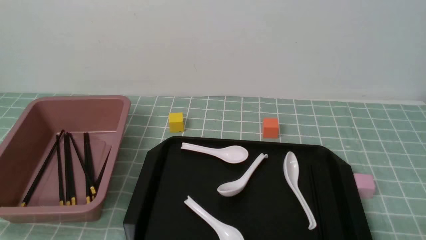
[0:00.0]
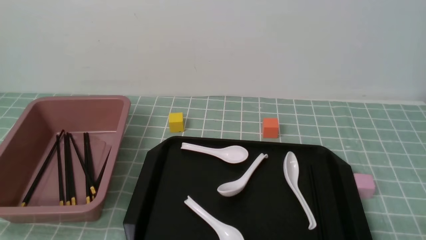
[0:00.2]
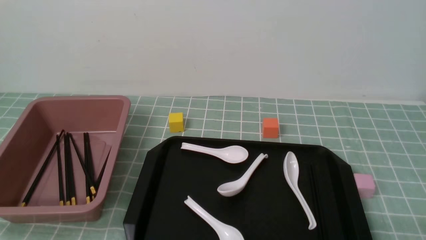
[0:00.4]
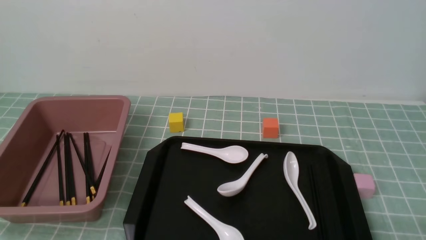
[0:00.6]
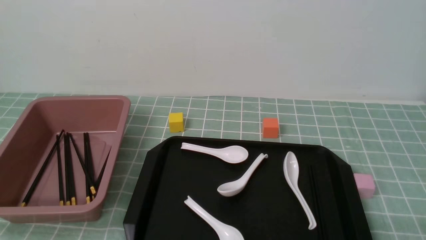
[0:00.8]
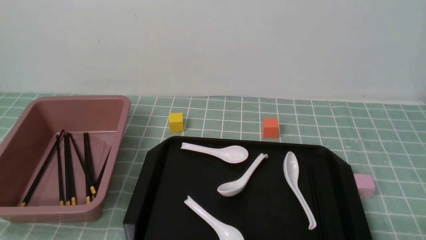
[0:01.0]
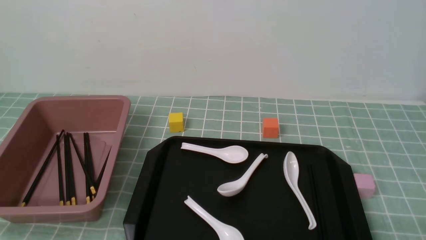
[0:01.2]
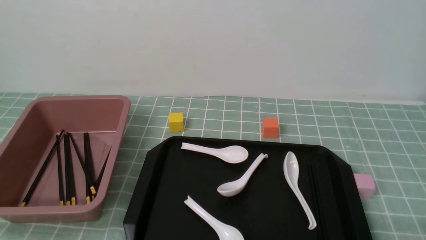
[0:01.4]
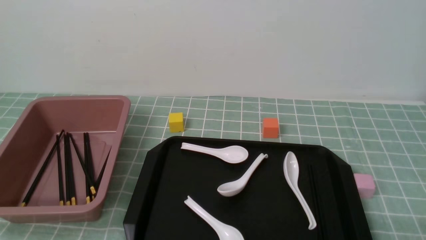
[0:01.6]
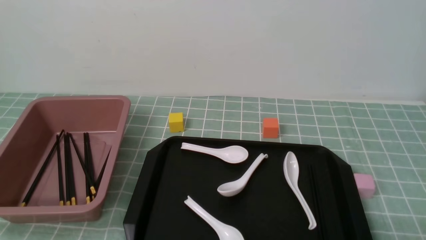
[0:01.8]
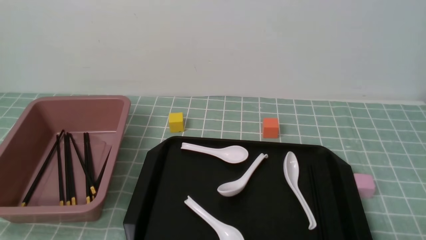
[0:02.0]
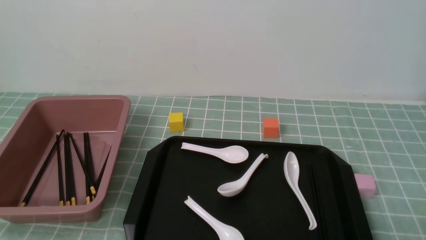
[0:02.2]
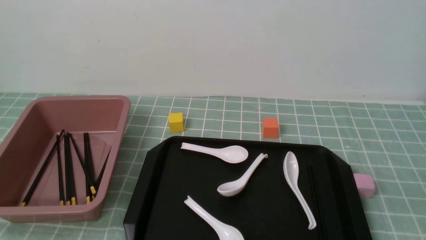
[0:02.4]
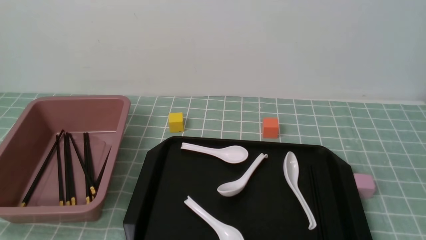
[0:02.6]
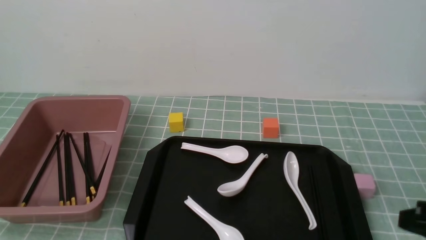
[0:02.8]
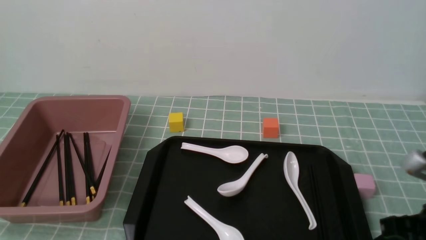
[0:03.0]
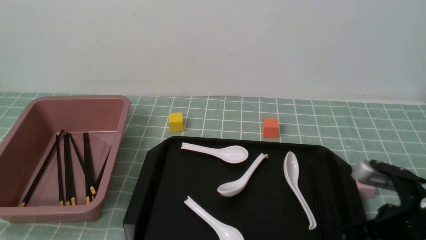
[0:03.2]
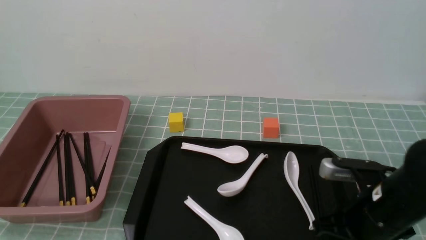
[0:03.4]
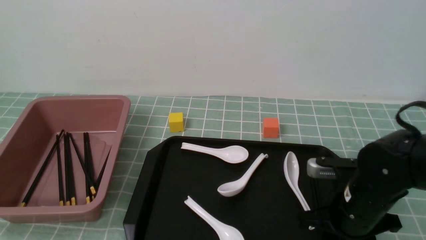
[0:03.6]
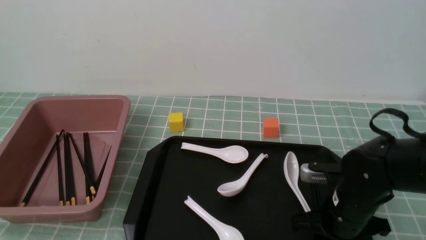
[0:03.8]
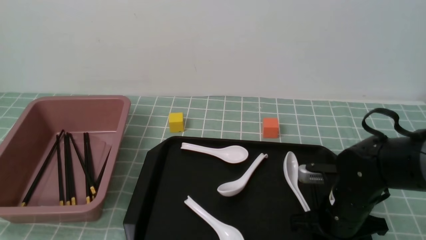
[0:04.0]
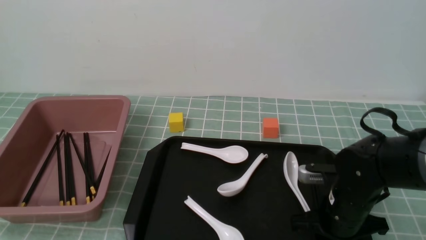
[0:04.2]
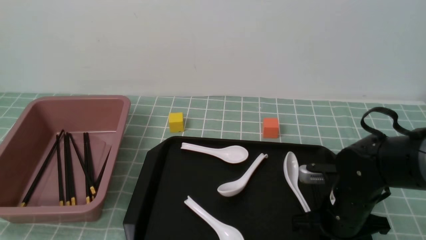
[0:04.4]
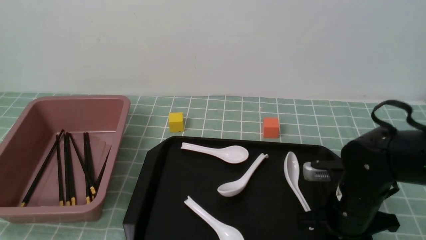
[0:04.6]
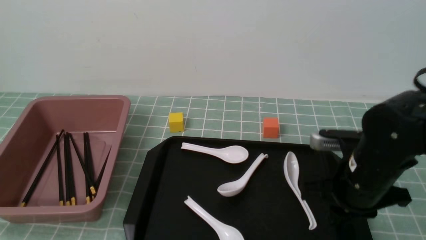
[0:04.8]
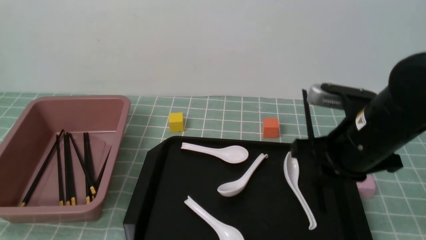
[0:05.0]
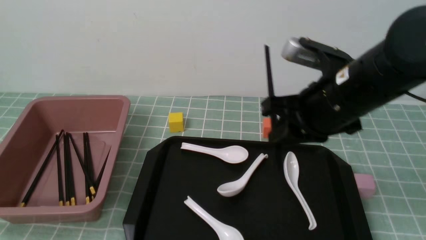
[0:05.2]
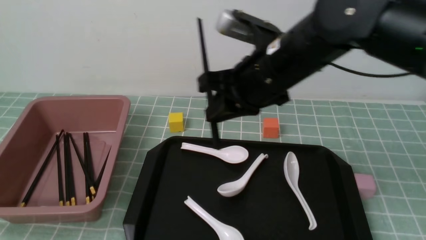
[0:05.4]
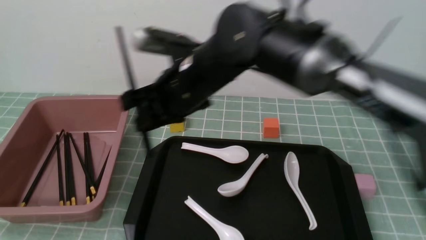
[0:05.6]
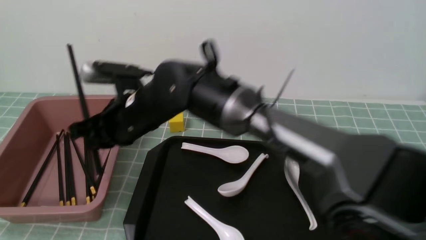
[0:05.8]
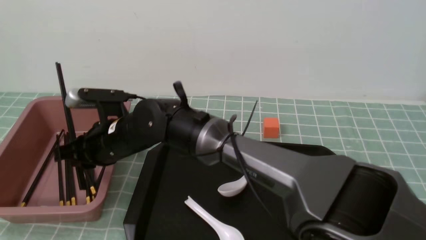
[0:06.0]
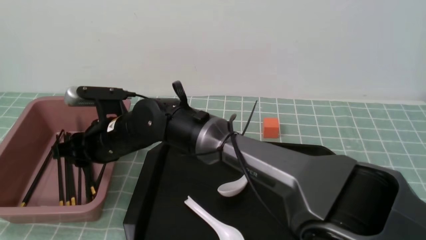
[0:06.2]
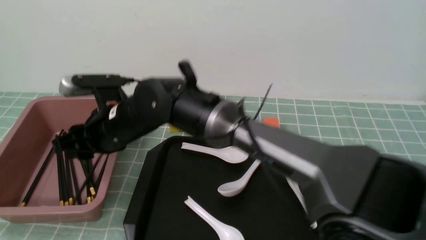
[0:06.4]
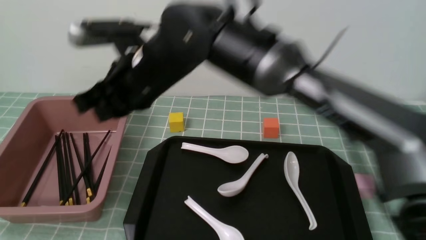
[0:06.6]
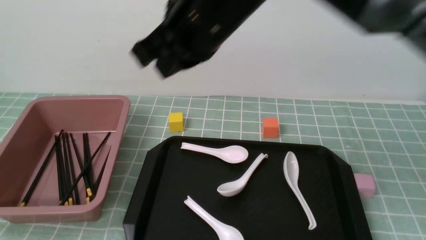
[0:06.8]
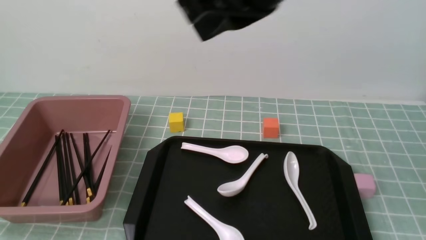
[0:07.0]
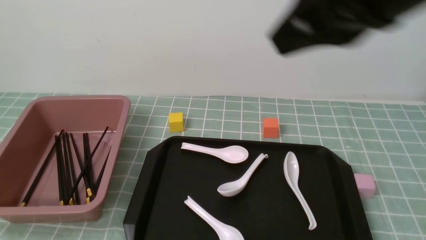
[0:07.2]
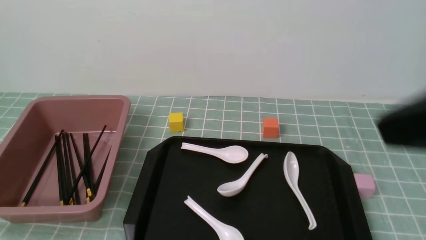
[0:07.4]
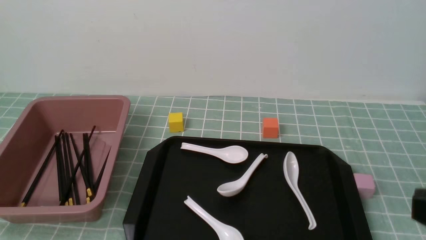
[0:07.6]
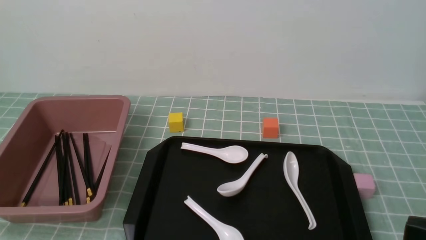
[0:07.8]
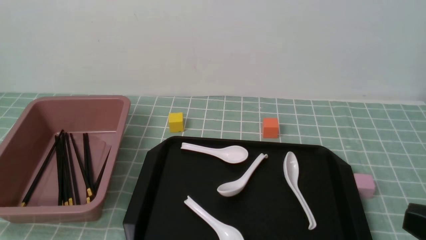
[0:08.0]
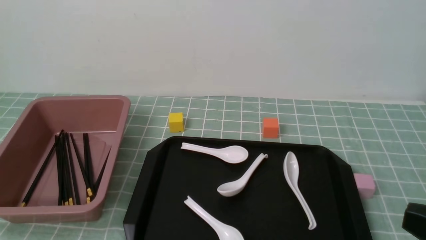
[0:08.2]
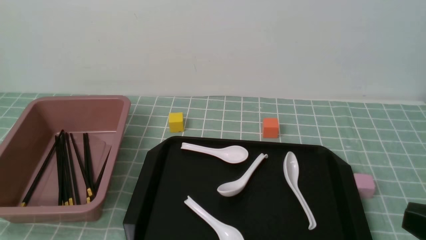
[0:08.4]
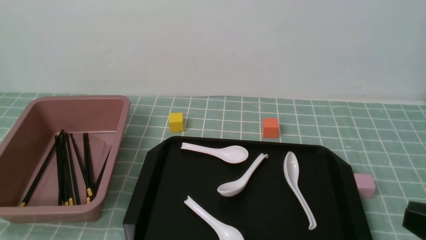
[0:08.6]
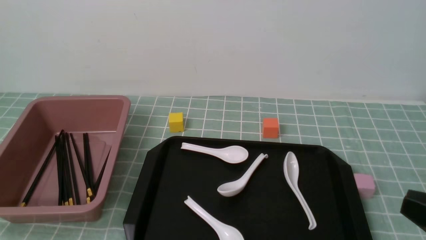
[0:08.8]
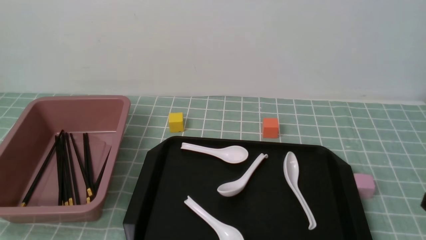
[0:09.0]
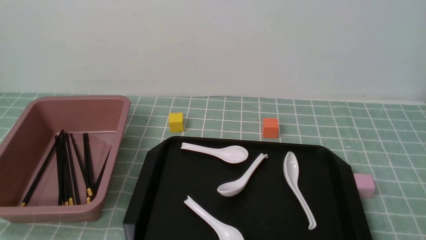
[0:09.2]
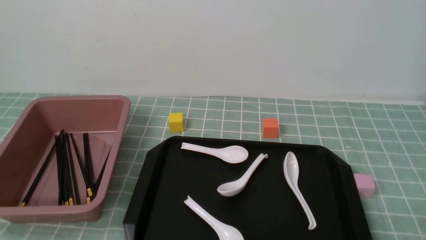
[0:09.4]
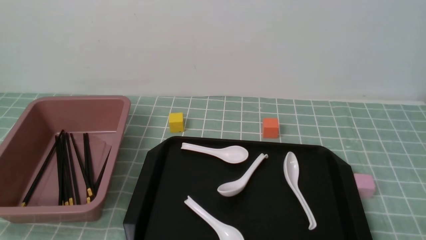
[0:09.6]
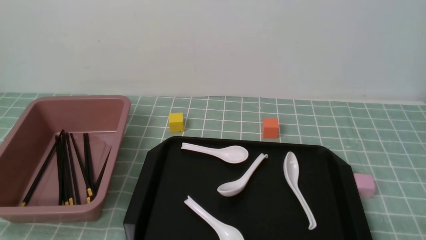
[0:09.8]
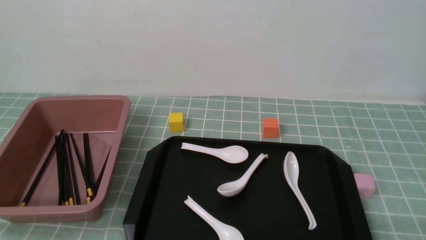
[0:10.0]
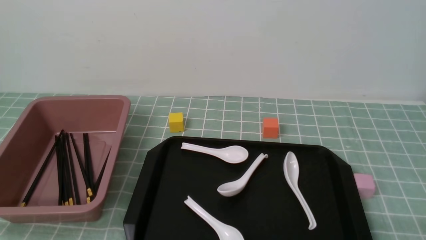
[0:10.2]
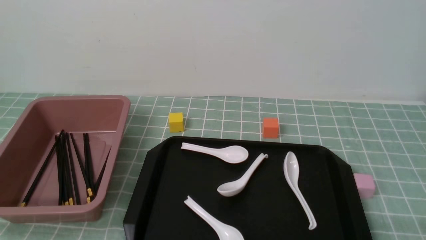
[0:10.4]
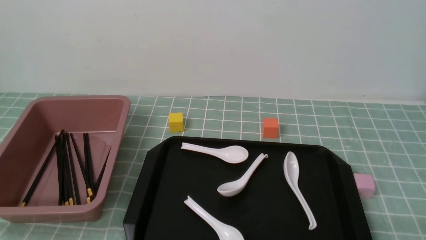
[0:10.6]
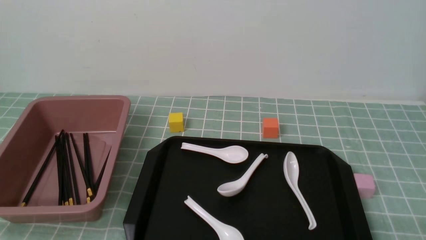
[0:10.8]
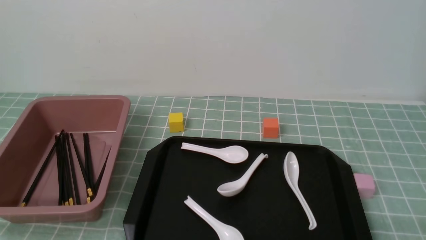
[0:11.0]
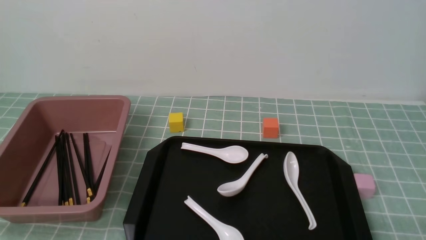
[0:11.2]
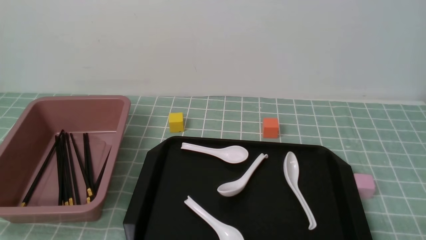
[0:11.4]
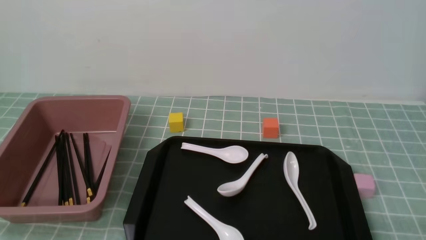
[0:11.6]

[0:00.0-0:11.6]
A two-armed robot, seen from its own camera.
Step, 0:00.0 to 0:04.8: use the right arm to grab a pair of chopsticks.
Step, 0:05.0 to 0:06.4: use the right arm to put the chopsticks into the lunch box.
0:00.0 to 0:01.4: Both grippers stay about where they are.
0:01.4 to 0:02.8: The right gripper shifts some 15 cm upward and forward, and closes.
0:02.8 to 0:04.4: The right gripper shifts some 20 cm downward, forward and to the left, and opens.
0:04.4 to 0:05.8: The right gripper goes some 30 cm to the left.
0:05.8 to 0:07.2: The right gripper is displaced to the right, upward and backward by approximately 40 cm, and closes its fingers.
0:07.2 to 0:08.8: The right gripper goes about 25 cm downward, to the right and backward.
0:08.8 to 0:10.2: The right gripper moves downward, about 15 cm.
0:10.2 to 0:11.6: Both grippers stay about where they are.

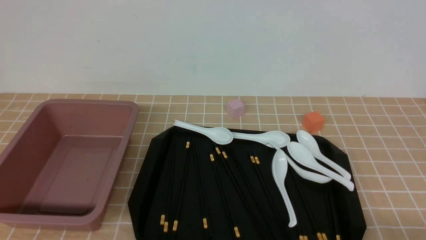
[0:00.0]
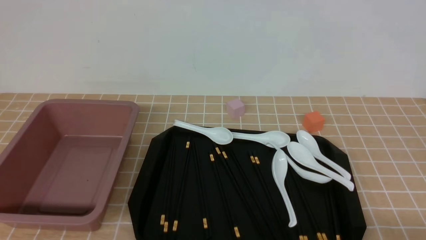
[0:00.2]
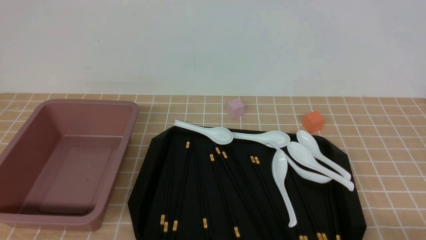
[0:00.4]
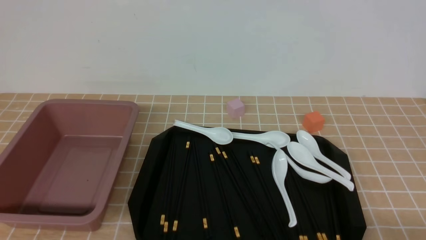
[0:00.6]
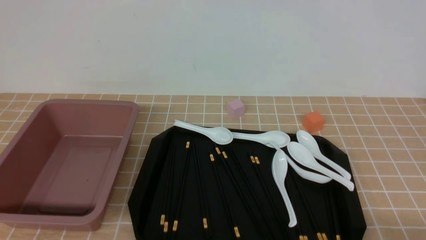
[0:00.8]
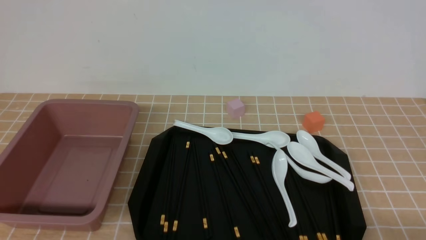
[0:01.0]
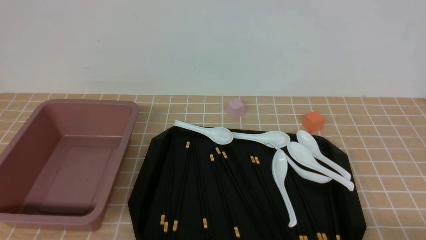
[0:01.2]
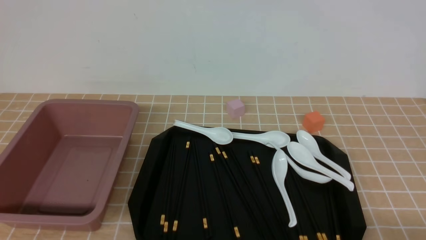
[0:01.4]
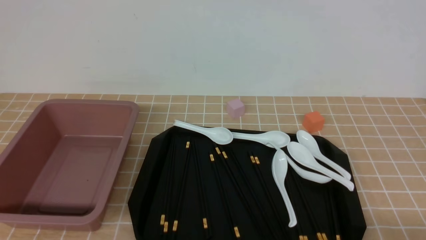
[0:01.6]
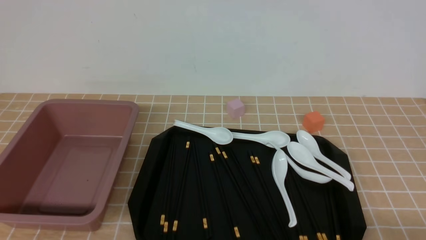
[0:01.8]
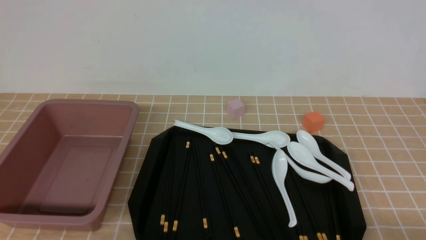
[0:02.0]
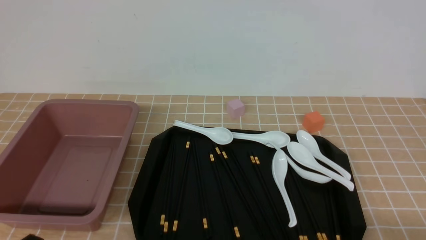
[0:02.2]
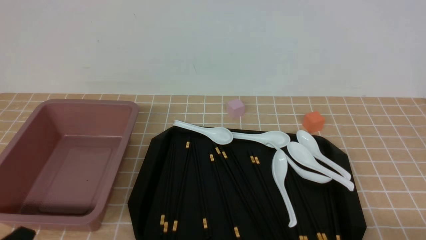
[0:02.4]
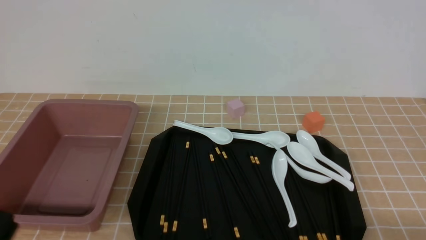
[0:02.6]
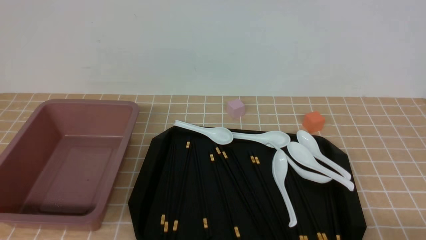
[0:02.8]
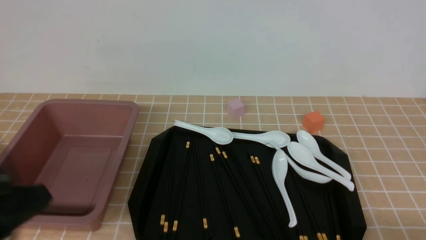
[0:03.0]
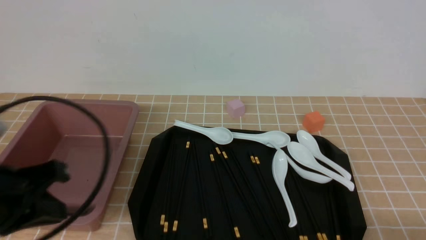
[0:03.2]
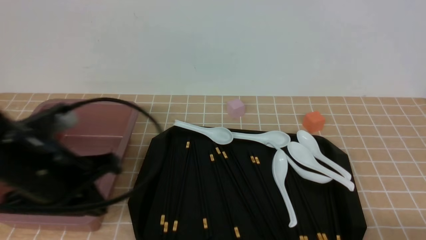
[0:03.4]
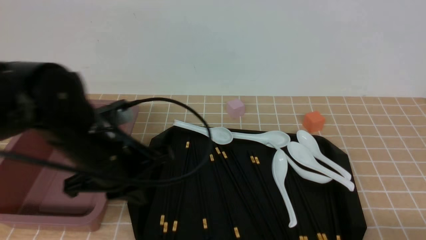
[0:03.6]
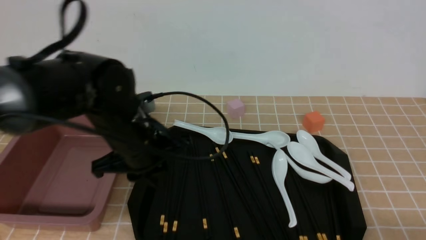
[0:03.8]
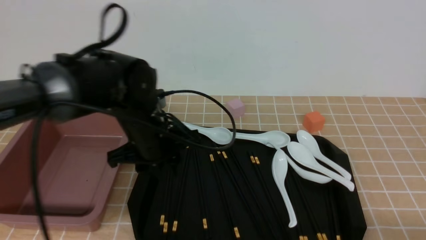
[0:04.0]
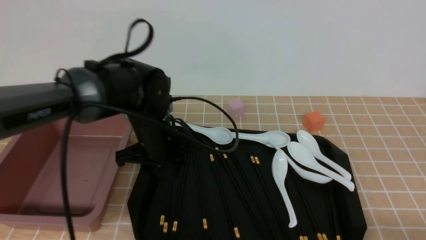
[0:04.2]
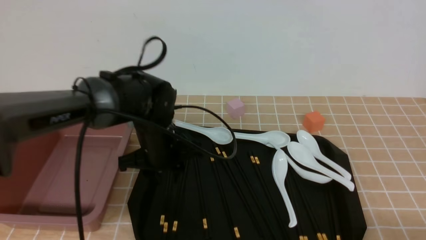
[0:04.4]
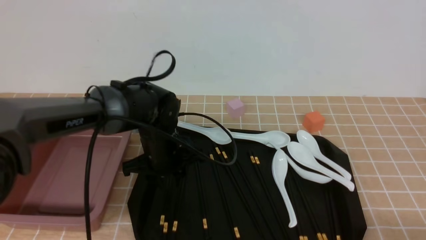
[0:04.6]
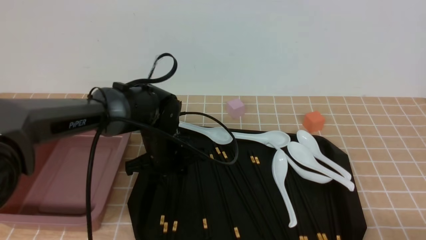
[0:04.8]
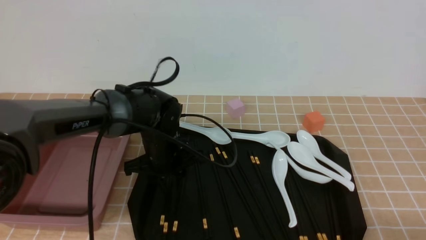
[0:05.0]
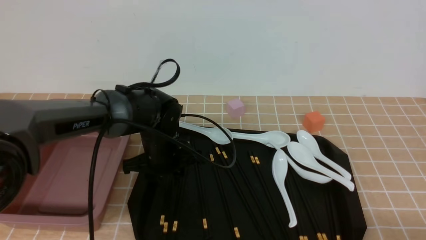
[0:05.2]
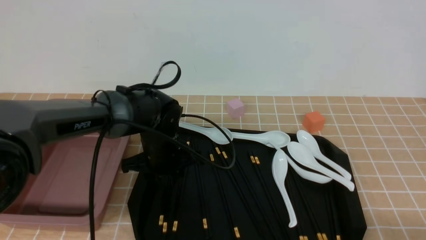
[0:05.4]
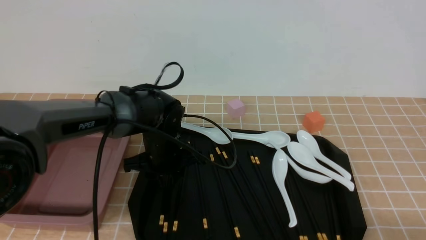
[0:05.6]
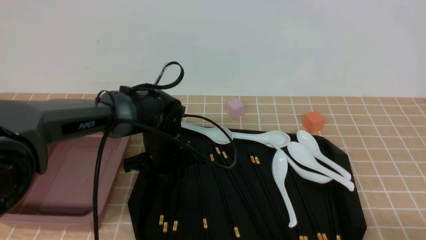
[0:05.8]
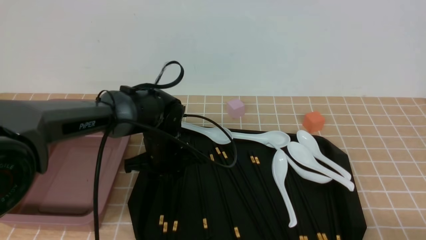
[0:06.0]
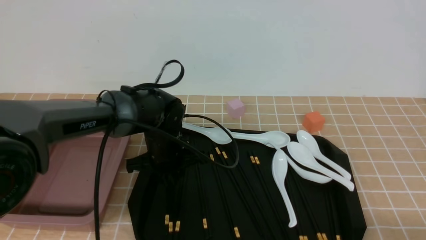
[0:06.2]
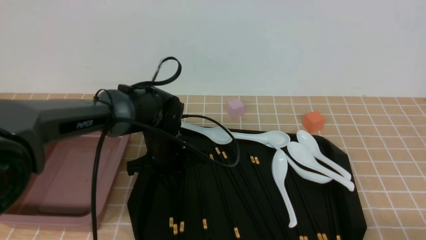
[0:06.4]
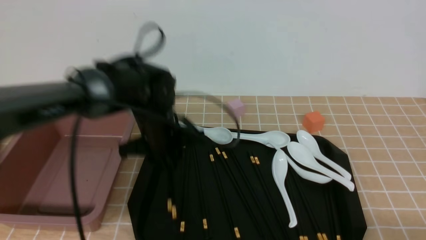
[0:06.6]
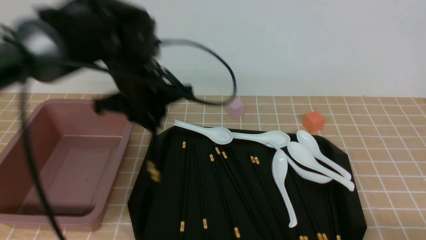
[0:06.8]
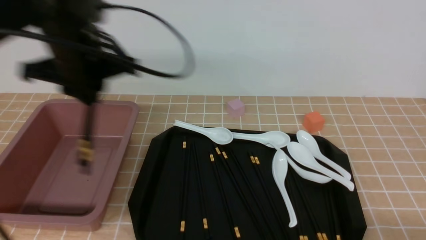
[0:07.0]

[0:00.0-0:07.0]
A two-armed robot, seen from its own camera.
Step, 0:00.0 to 0:06.6: use the left arm to grab a pair of chopsticks.
0:00.0 to 0:01.4: Neither gripper changes place.
0:02.8 to 0:04.2: The left gripper goes about 35 cm forward and to the right, and opens its fingers.
0:04.2 to 0:05.6: The left gripper shifts approximately 5 cm downward.
0:05.6 to 0:07.0: The left gripper travels upward and to the left by roughly 20 cm, and closes.
